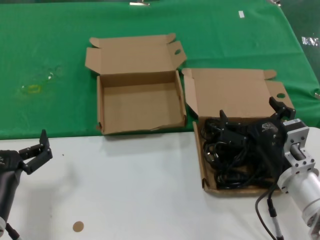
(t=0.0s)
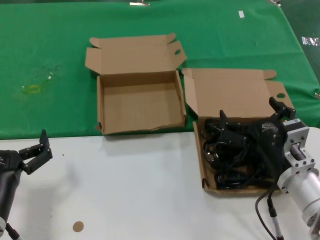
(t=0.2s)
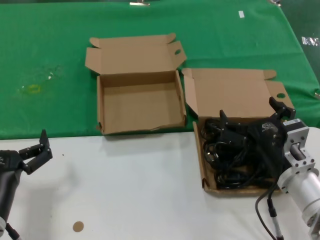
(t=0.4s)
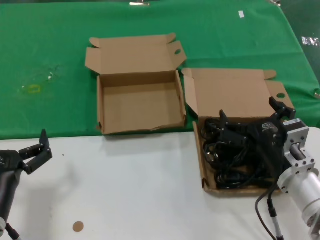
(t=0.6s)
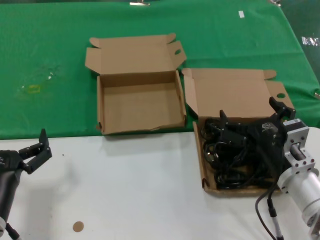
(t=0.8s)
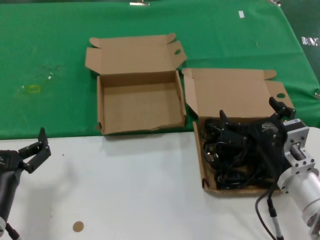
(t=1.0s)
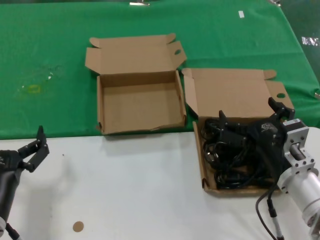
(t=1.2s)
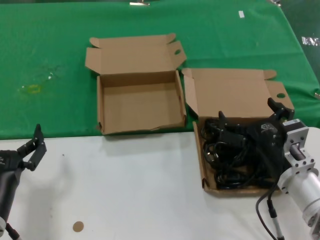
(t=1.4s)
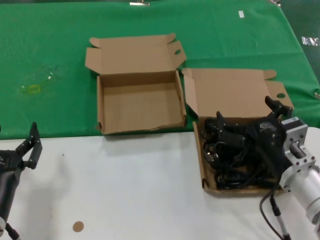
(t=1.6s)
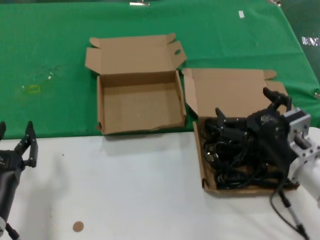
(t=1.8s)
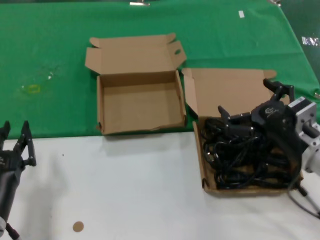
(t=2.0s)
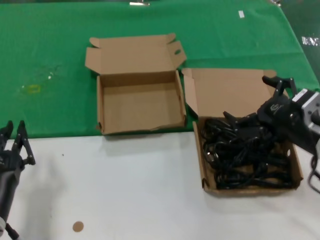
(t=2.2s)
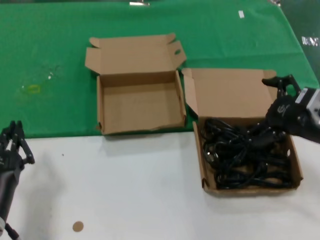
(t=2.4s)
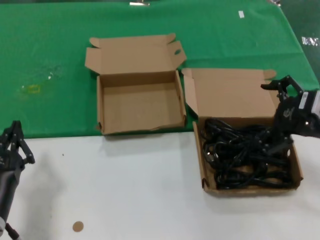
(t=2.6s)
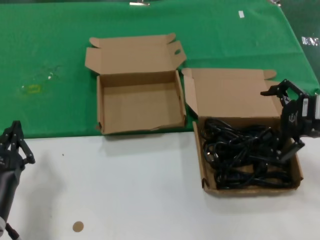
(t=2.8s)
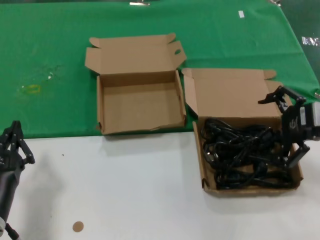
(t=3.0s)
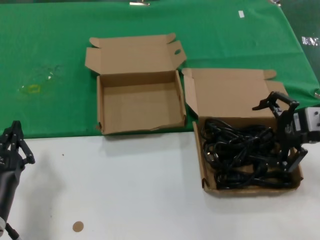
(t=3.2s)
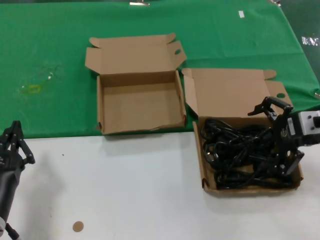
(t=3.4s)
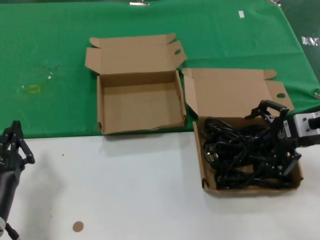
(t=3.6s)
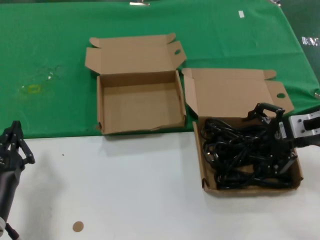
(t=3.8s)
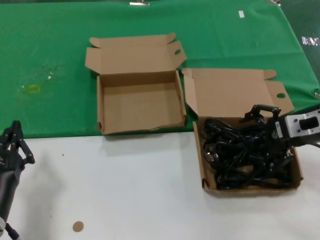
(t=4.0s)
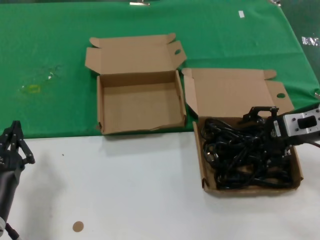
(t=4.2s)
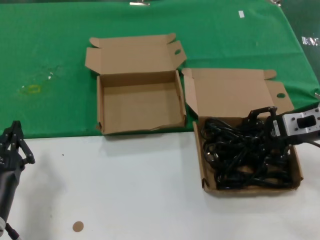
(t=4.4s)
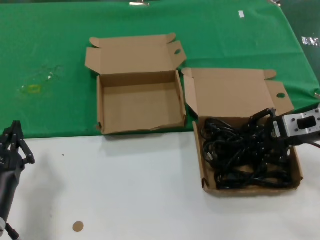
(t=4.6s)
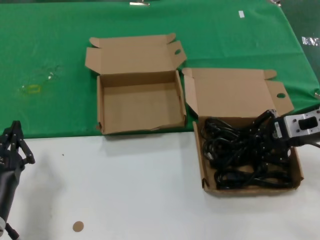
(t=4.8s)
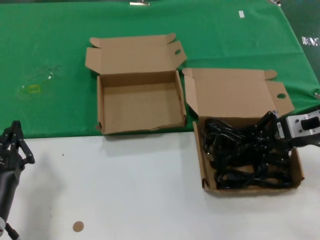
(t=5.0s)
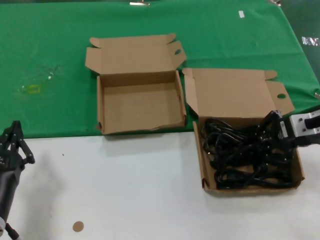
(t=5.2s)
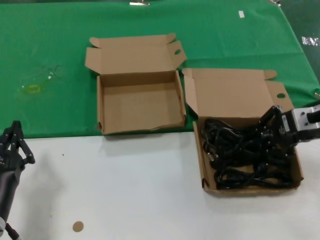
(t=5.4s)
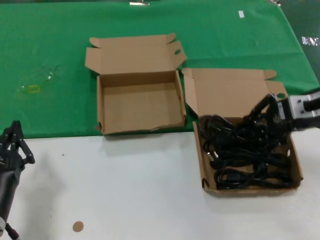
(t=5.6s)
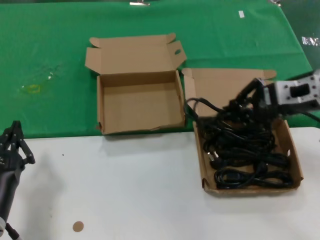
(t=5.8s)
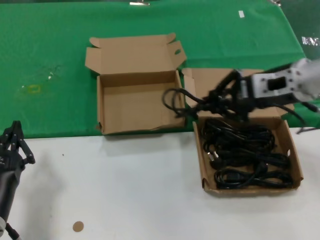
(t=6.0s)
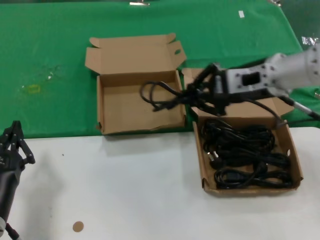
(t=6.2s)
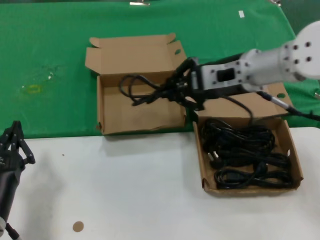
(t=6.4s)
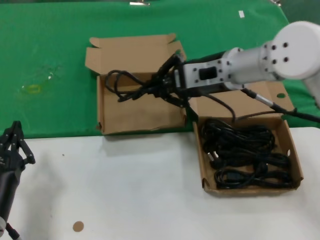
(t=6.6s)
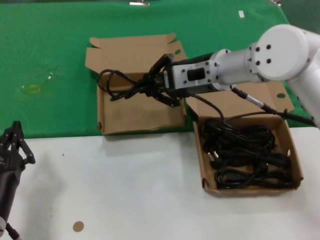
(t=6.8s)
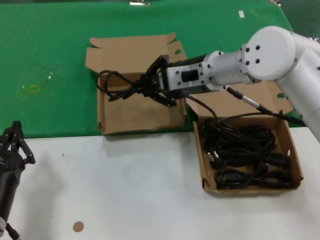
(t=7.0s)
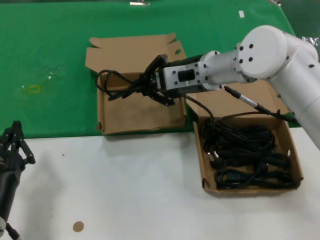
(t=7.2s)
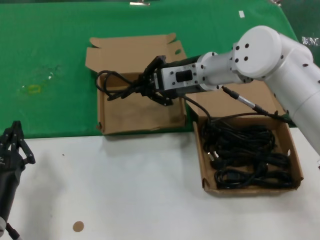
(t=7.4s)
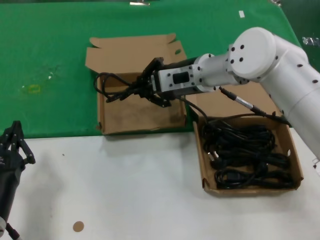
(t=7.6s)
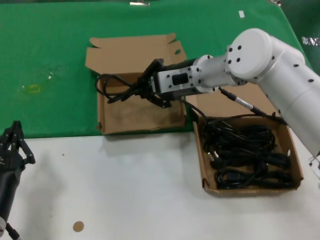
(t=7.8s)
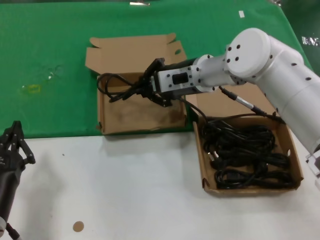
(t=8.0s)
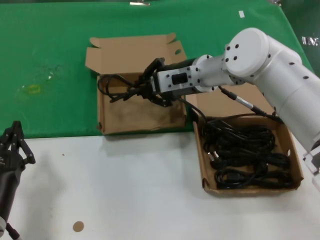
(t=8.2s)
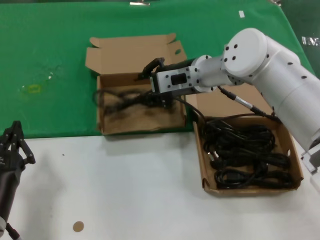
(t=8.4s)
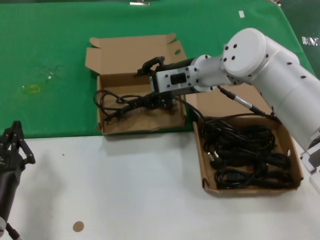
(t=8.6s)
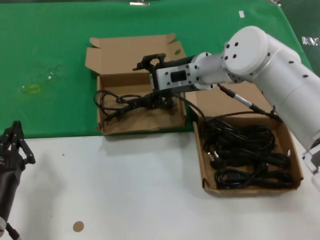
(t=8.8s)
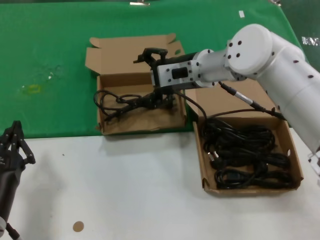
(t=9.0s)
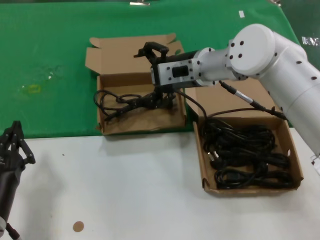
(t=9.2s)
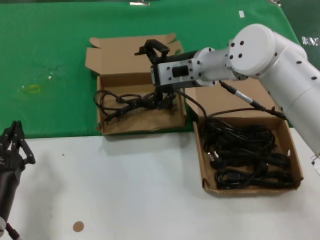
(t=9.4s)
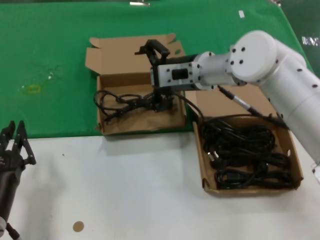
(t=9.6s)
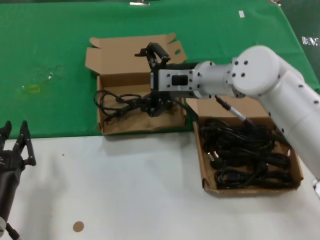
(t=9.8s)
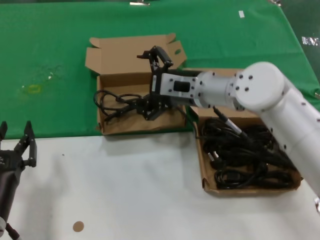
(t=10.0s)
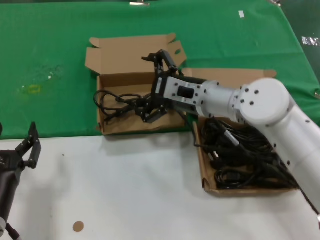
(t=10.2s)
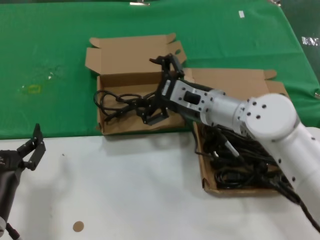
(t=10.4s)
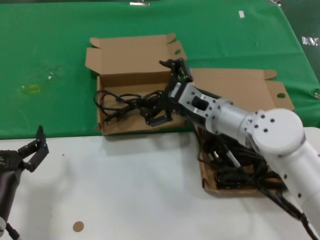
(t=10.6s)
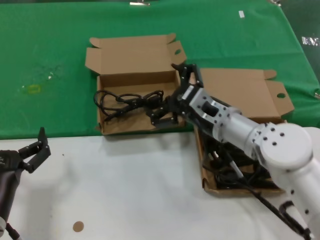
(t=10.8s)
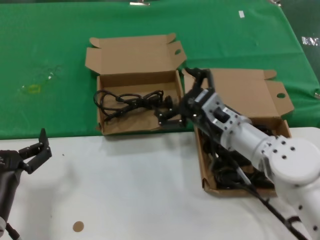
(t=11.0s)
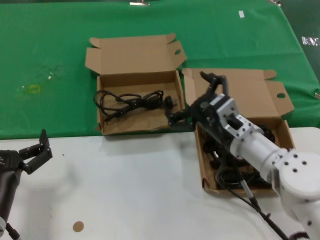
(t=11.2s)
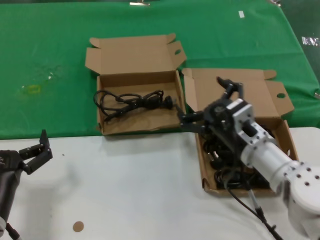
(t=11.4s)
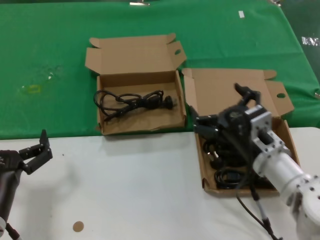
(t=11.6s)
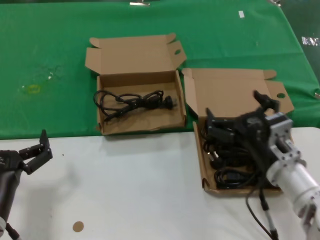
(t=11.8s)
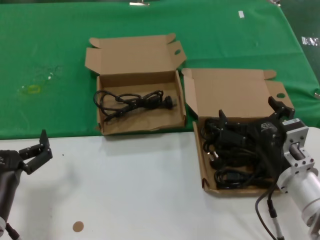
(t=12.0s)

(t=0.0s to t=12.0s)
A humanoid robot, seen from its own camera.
Task of the whole recording: take the parts from the box containing them and put them into an empty box.
Step, t=0.0s - t=4.8s: Grasp the data cable.
Step, t=5.0s - t=8.4s: Place the data cable in the another box.
t=0.0s - t=1.6s: Both hands stay put.
t=1.6s - t=3.0s: The right hand travels upward and to the right by roughly 20 cm.
t=3.0s - t=4.4s: The right hand travels forward by approximately 5 cm.
t=4.4s - t=6.0s: The right hand goes some 10 cm upward and to the left.
t=6.0s - t=7.6s: The right hand moves to the left and forward, about 15 cm.
t=7.6s - t=9.0s: There are only small adjustments of the hands.
t=9.0s - t=10.4s: The right hand shifts roughly 10 cm downward and backward.
t=10.4s - t=12.0s: The right hand heads backward, to the right and downward, covering approximately 20 cm.

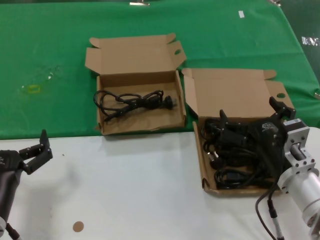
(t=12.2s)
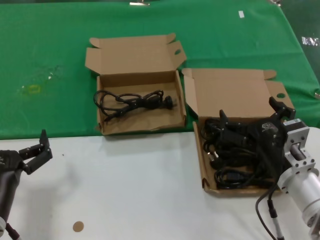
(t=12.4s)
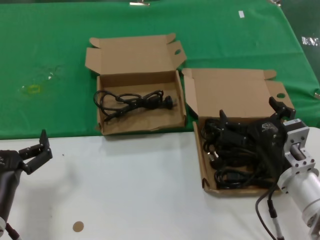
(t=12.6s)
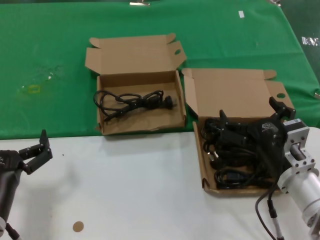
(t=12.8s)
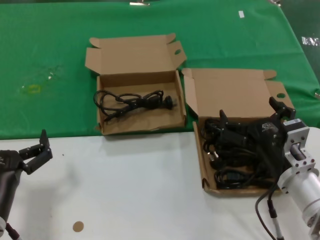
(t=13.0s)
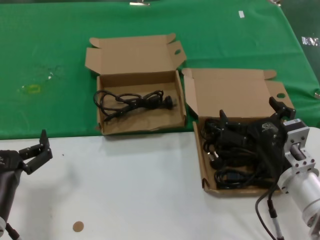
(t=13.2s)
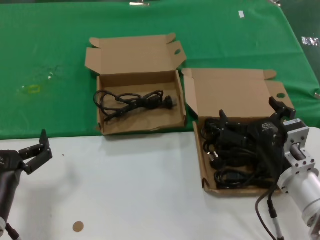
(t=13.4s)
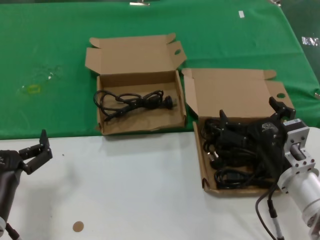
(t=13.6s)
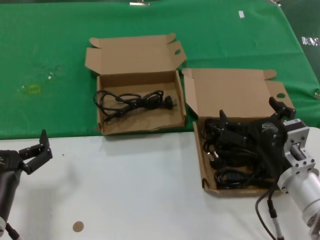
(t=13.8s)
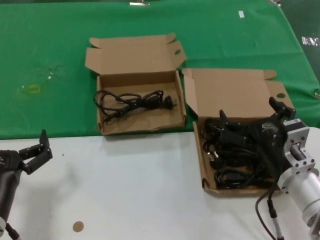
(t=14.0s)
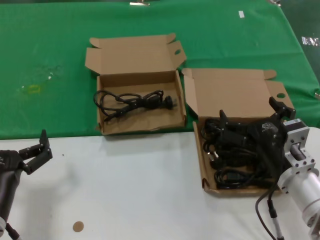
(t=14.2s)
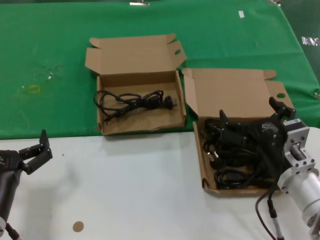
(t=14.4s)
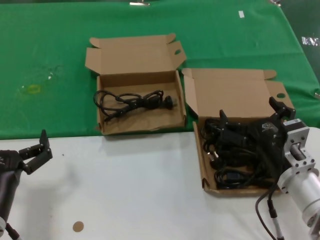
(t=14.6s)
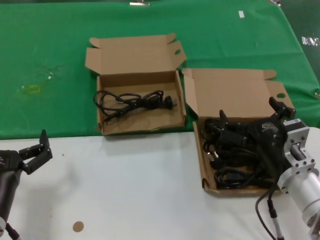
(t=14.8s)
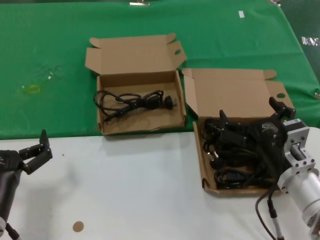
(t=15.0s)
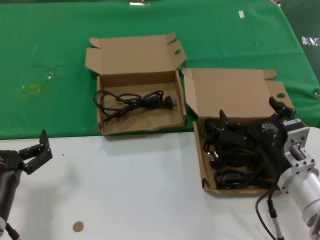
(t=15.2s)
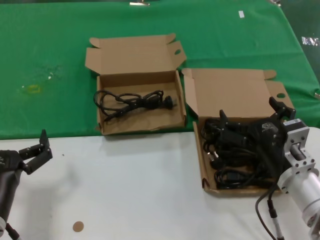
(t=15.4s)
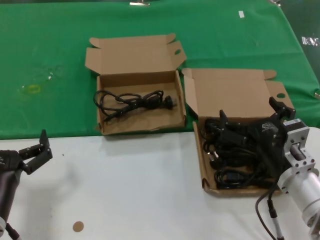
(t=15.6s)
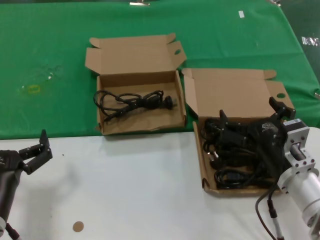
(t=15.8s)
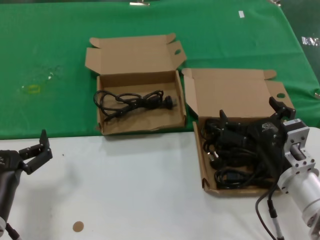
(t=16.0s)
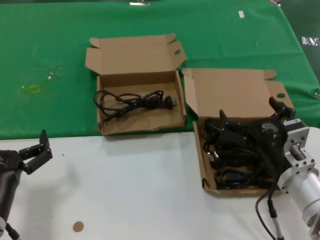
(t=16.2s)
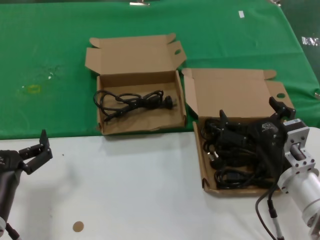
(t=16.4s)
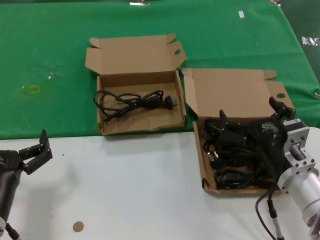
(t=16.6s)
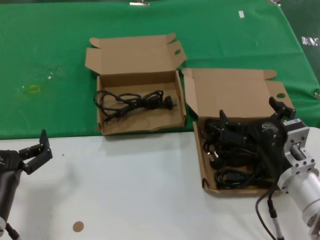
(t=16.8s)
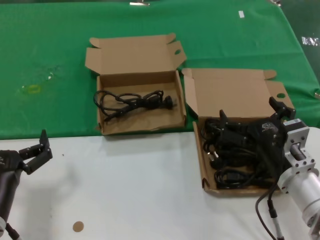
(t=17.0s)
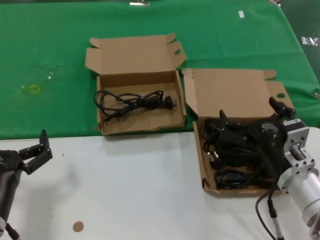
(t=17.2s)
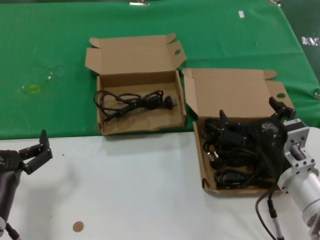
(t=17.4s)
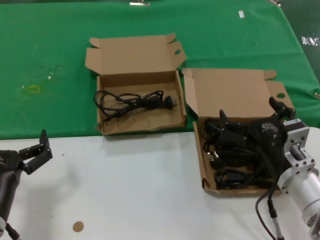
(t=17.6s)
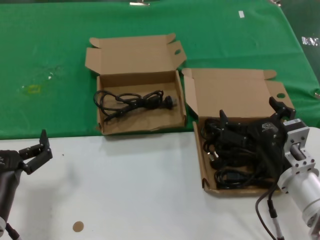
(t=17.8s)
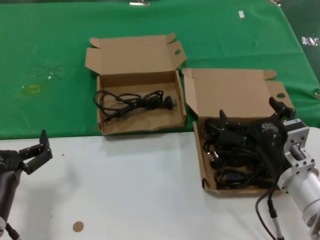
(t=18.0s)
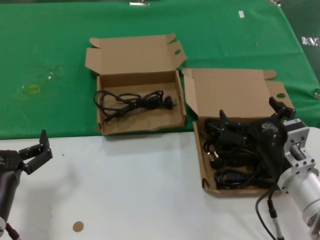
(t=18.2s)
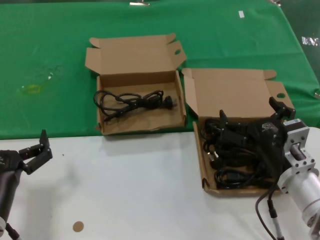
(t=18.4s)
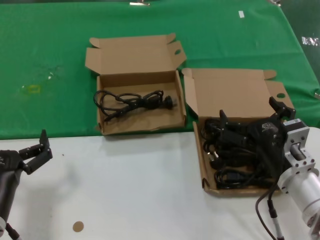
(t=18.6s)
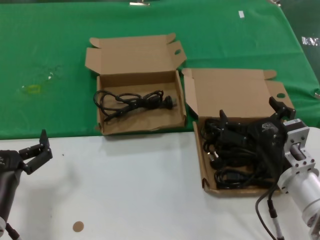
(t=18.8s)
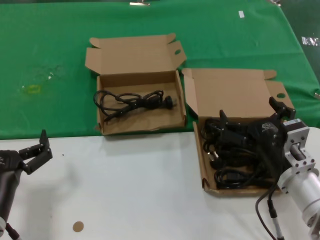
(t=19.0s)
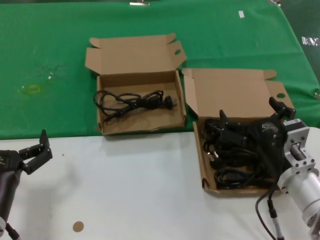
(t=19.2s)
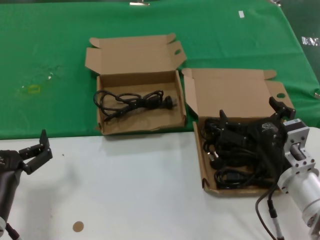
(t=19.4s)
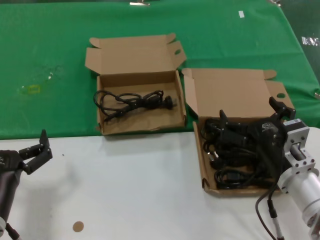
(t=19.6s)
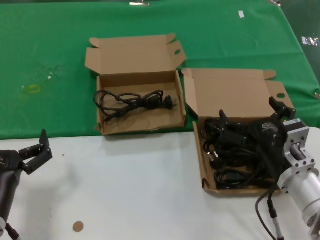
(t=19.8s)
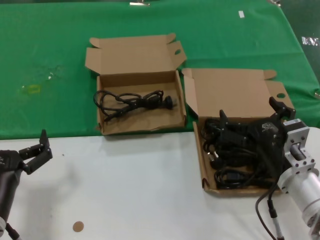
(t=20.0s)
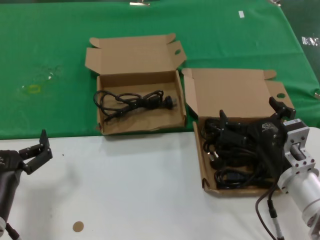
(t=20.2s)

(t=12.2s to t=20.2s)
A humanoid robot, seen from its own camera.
Task of the whole recording: take the parts from the box containing them and put them into an empty box.
t=12.2s - t=20.2s: Both hands stay about where they are.
